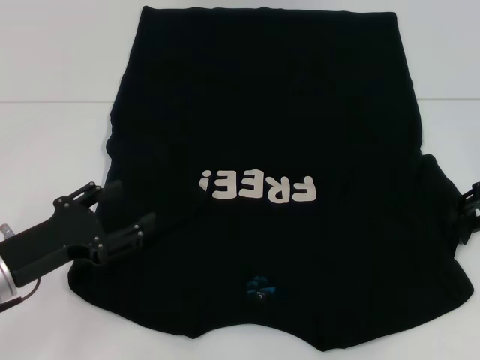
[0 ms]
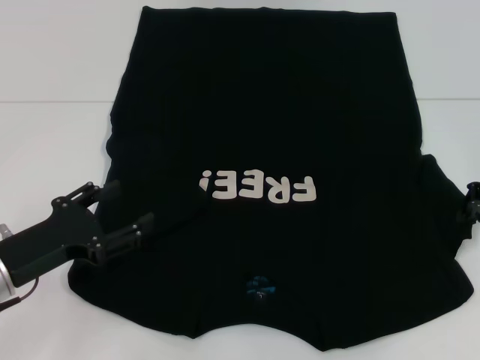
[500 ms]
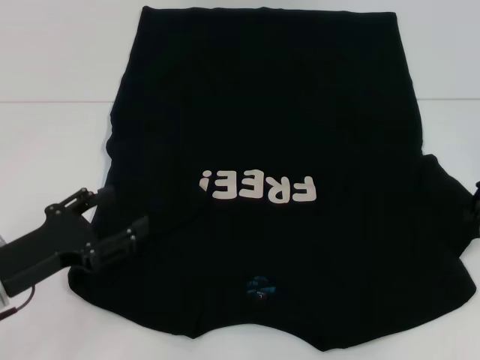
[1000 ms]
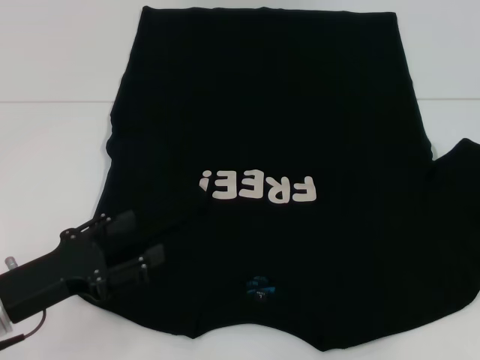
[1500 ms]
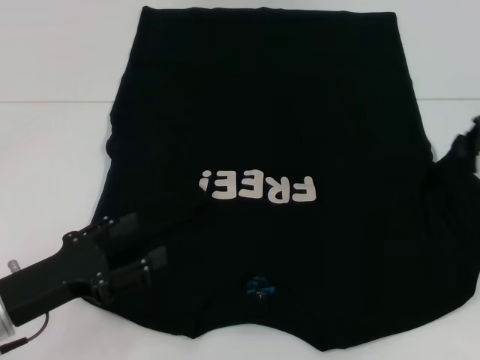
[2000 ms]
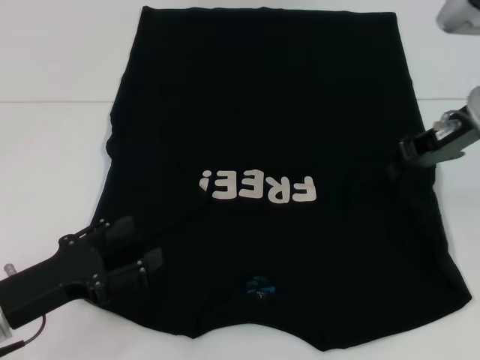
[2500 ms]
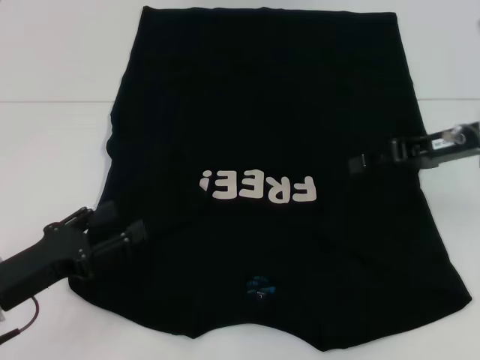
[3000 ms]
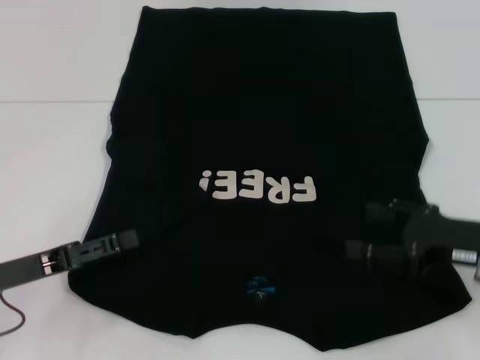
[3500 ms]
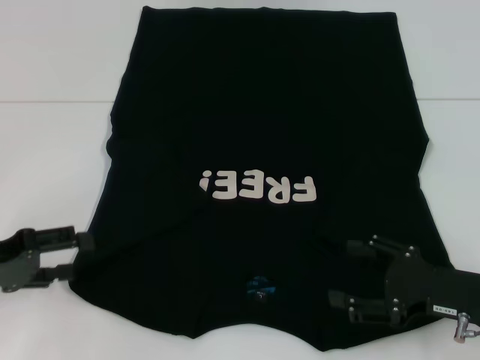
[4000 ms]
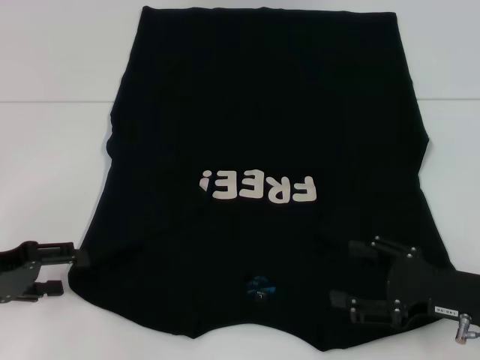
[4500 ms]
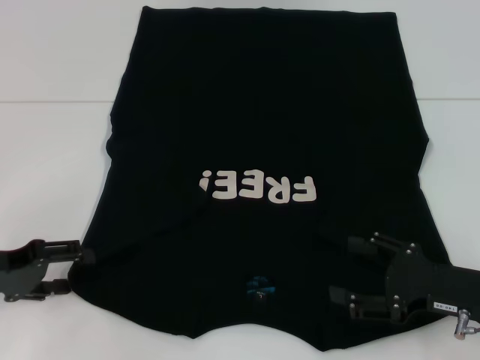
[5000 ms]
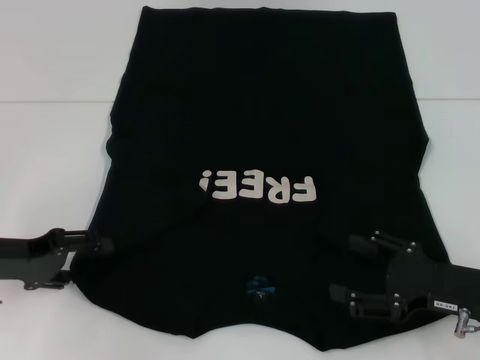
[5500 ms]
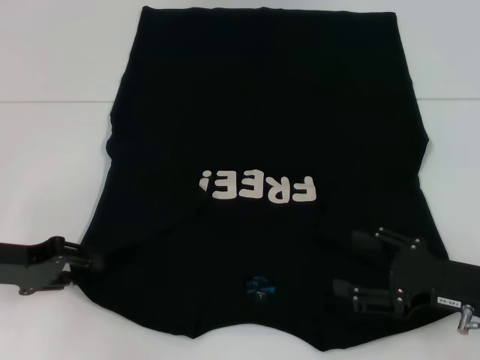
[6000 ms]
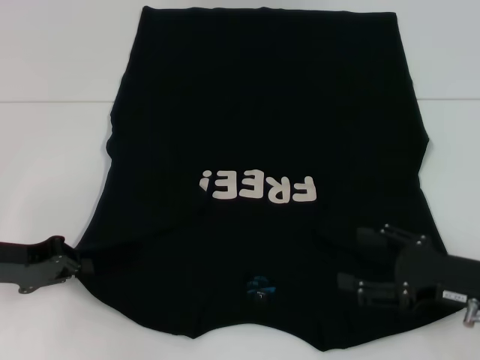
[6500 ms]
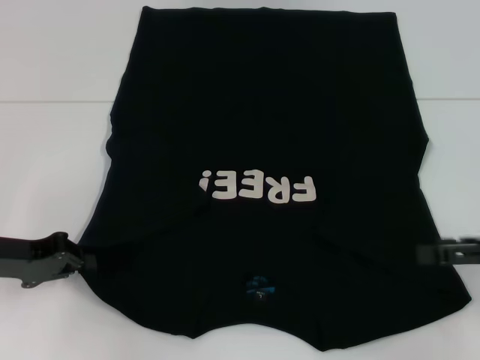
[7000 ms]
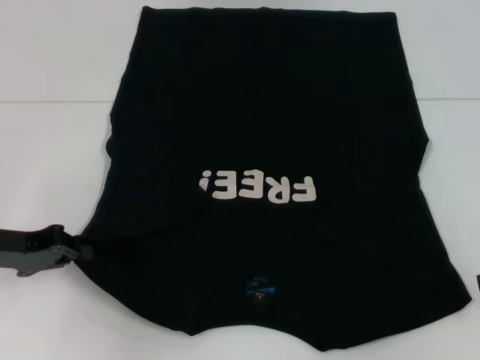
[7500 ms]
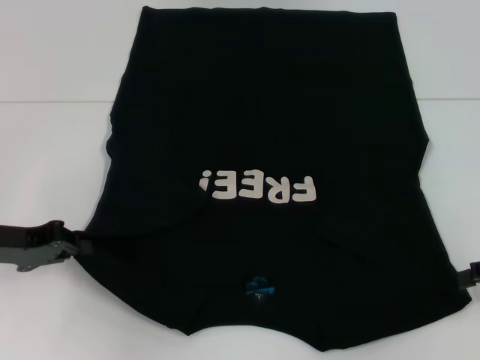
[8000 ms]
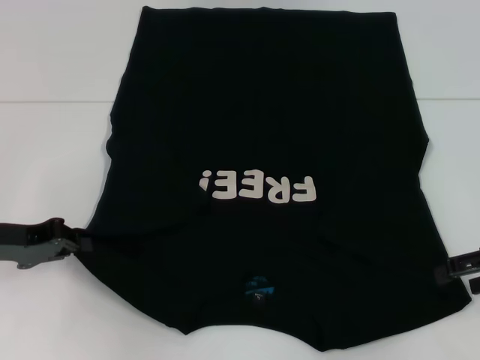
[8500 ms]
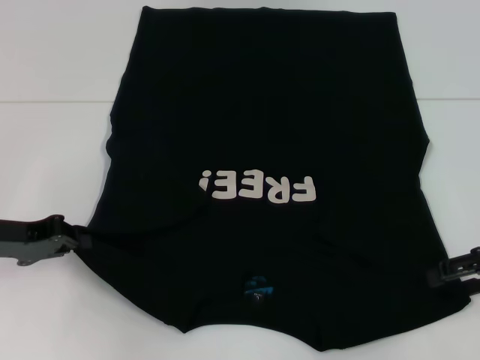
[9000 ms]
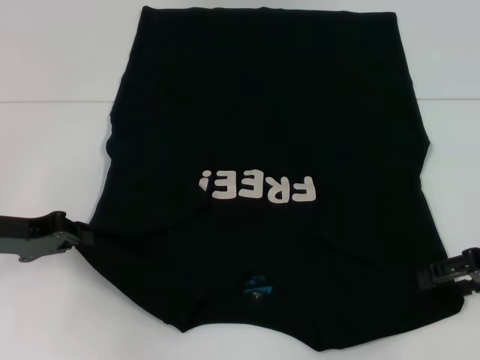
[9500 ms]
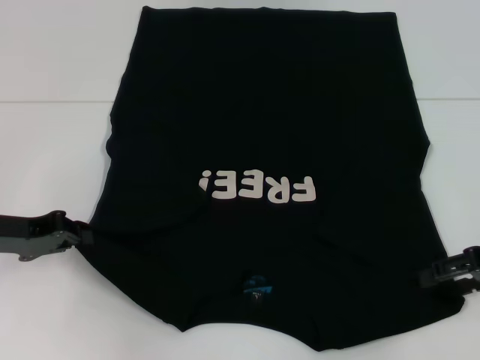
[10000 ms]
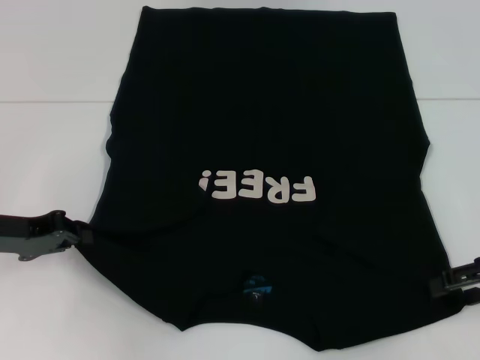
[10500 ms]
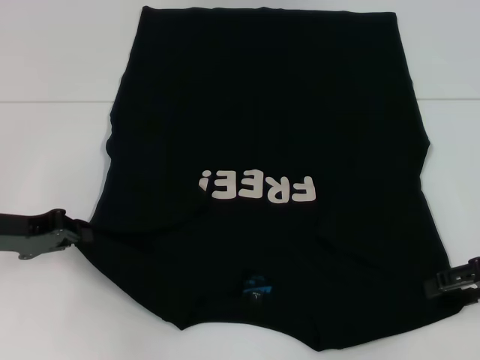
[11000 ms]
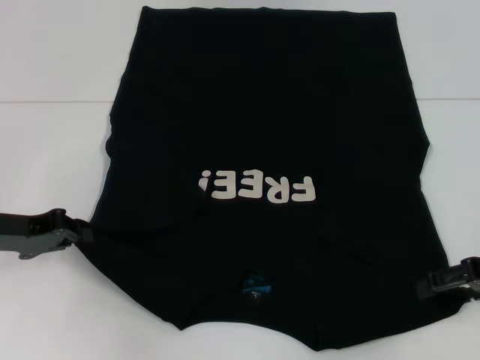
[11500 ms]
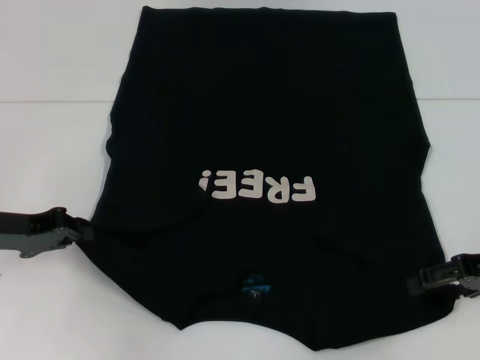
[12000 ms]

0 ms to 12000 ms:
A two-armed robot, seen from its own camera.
Step, 0 ms to 3000 ms: Fold the bottom right sleeve with your right hand.
Step, 3500 ms to 6500 ms: Grab the bottom left corner with your left hand.
0 ms to 2000 ms: The right gripper goes some 10 cm upward, and closes up.
2000 ms to 4000 ms: The right gripper travels downward and backward by about 20 cm, and opens its fingers. The left gripper goes approximately 5 cm to the left.
4000 ms to 6000 ms: The left gripper closes.
6000 ms to 8000 ms: The right gripper travels to the right and upward by some 10 cm; the left gripper closes.
8000 ms to 10000 ms: The grippers make only small movements.
10000 ms to 12000 ms: Neither gripper changes place.

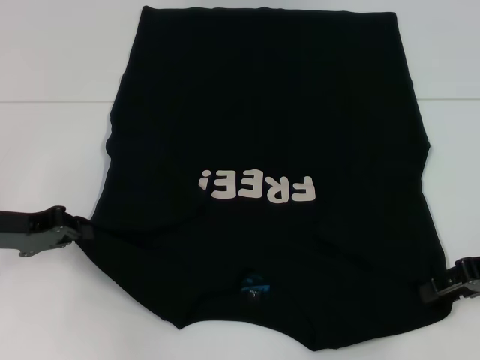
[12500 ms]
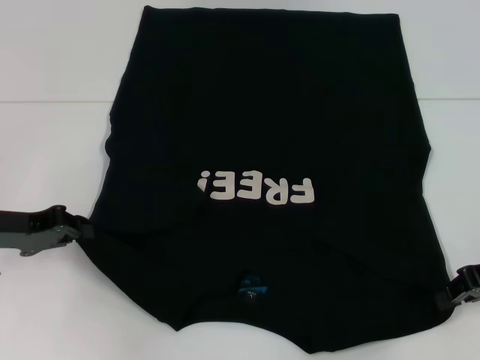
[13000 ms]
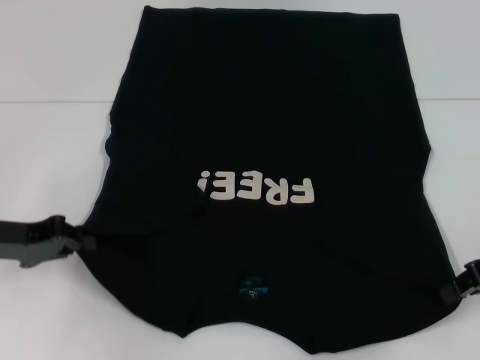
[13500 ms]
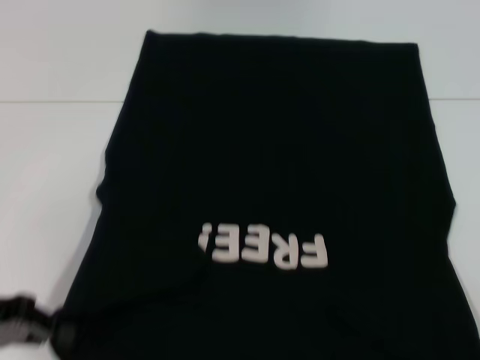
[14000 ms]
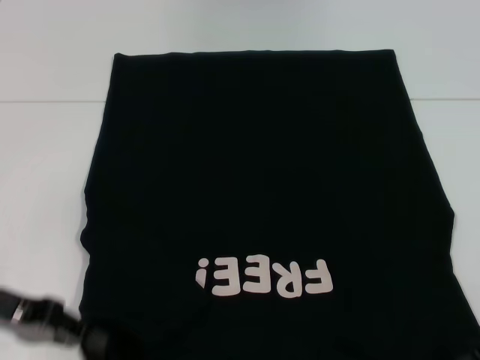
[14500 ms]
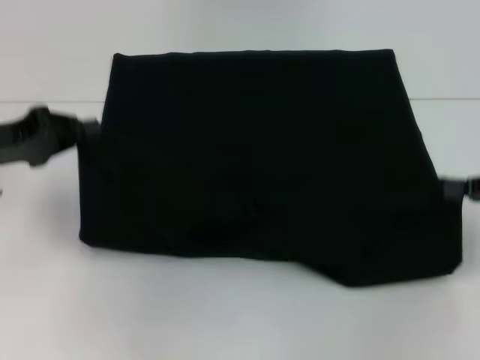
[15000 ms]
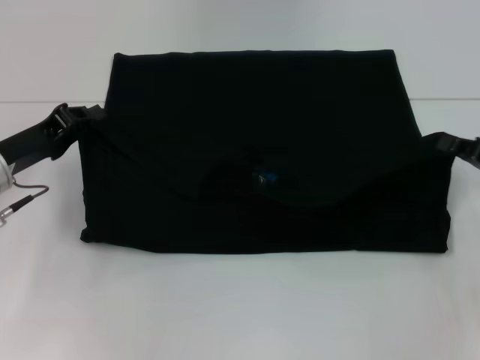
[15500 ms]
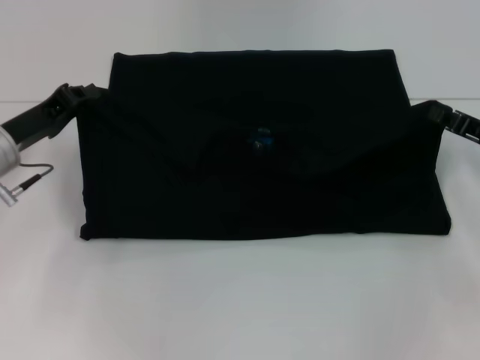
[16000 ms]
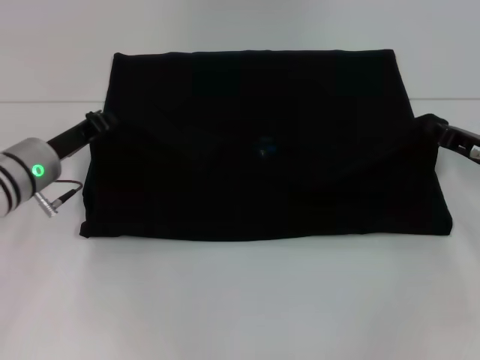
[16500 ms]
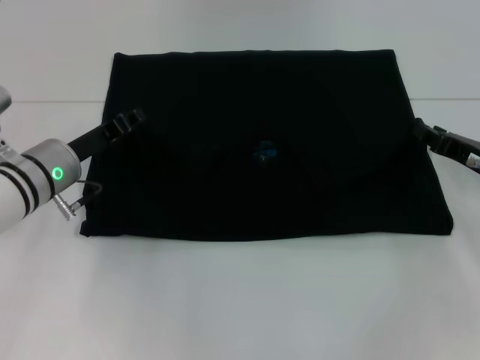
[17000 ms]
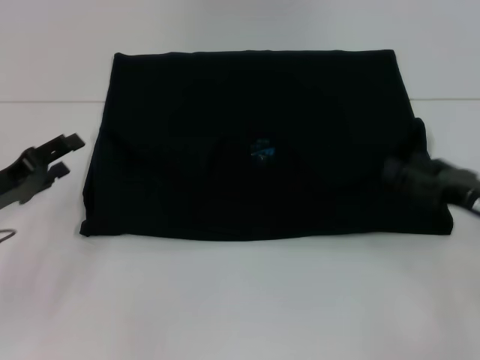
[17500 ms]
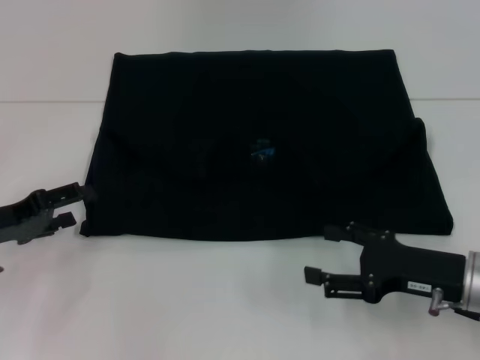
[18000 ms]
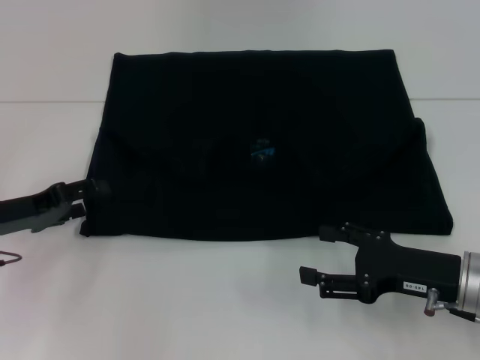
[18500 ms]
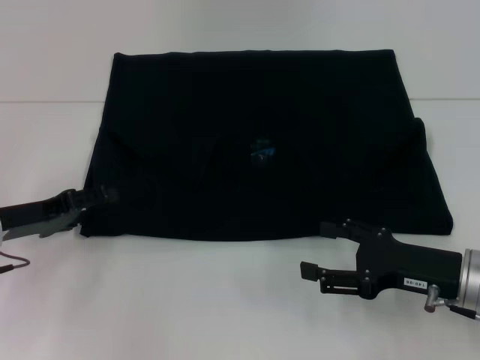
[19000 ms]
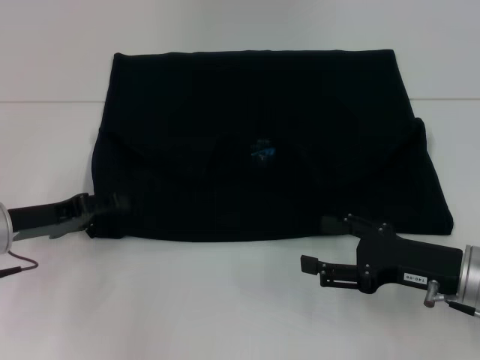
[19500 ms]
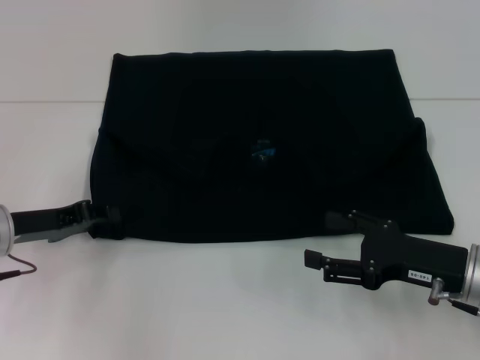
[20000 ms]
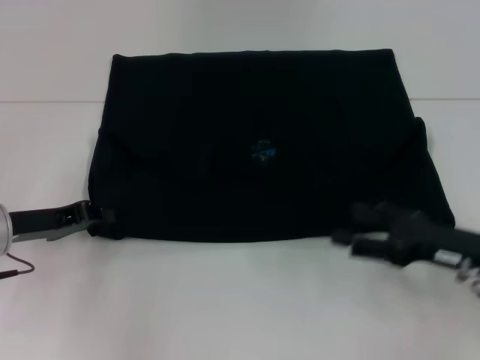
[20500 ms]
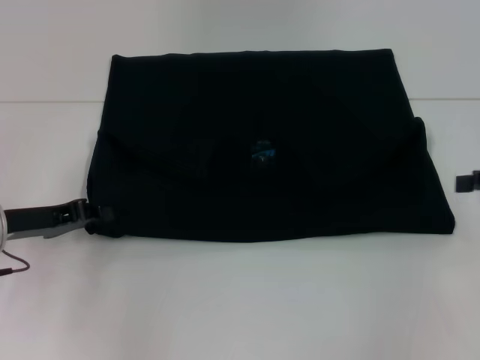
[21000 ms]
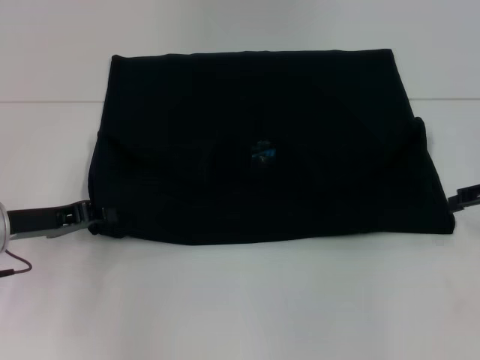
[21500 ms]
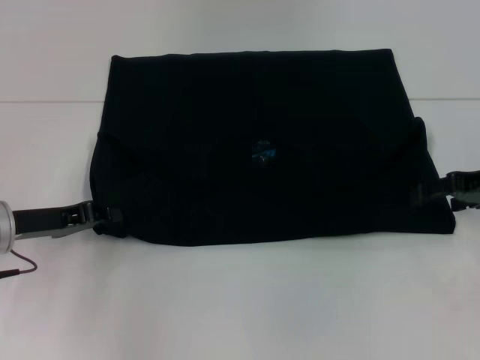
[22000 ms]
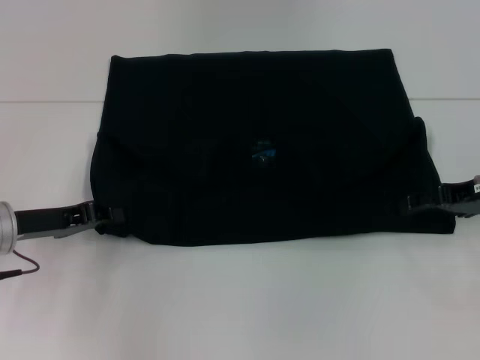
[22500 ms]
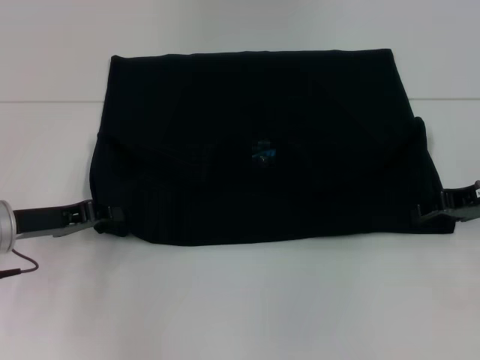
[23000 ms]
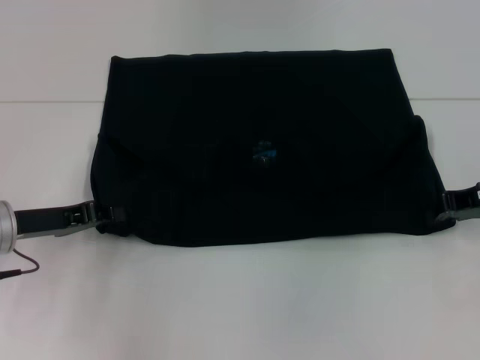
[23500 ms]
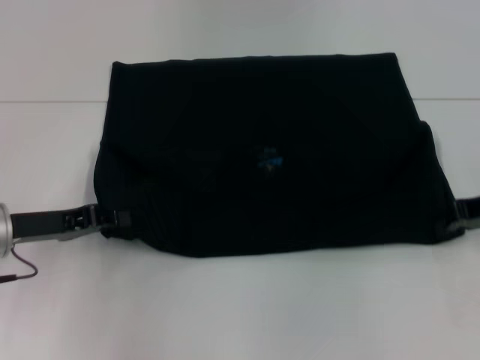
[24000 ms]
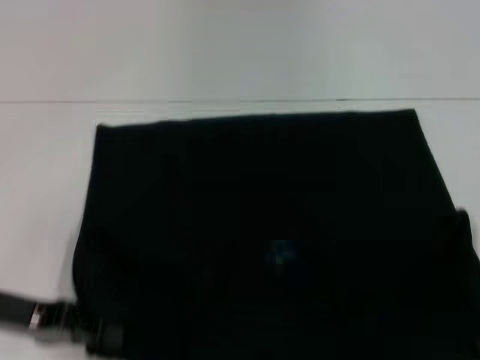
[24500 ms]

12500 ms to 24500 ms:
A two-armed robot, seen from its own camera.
Step, 13500 ms to 17000 ms: Fold the clothes with your left hand.
Step, 13500 ms to 17000 ms: Fold the clothes with your right hand.
12500 ms to 14500 ms: The left gripper shifts approximately 5 cm backward. The right gripper closes.
14500 ms to 16500 ms: The right gripper shifts approximately 10 cm forward and downward, while the left gripper is displaced forward and to the right by approximately 15 cm.
16500 ms to 18500 ms: The left gripper heads to the left and backward, covering approximately 10 cm, and opens. The right gripper shifts some 10 cm backward and to the left, and opens up.
18500 ms to 20500 ms: The left gripper closes.
20500 ms to 22500 ms: The right gripper goes approximately 10 cm forward and upward.
22500 ms to 24500 ms: Both grippers travel together backward, roughly 5 cm. The right gripper closes.

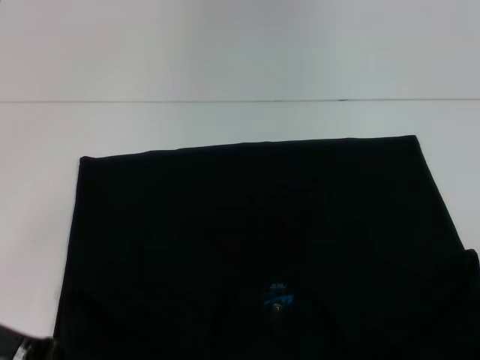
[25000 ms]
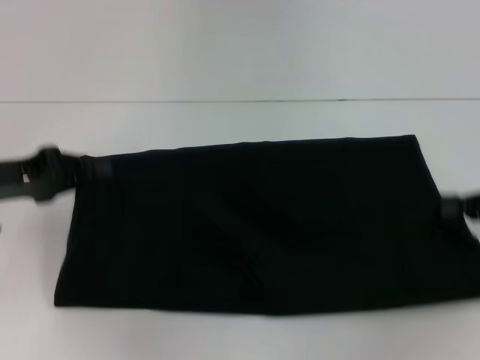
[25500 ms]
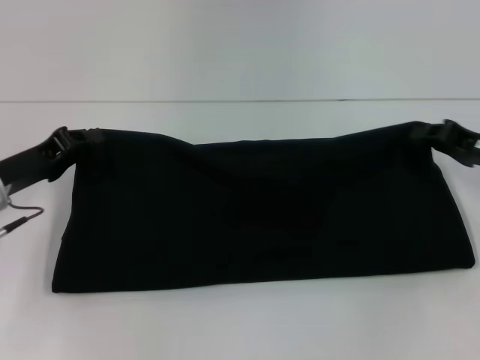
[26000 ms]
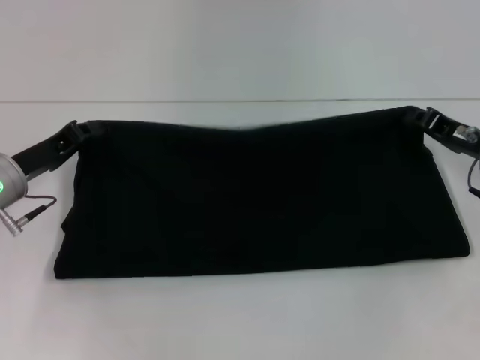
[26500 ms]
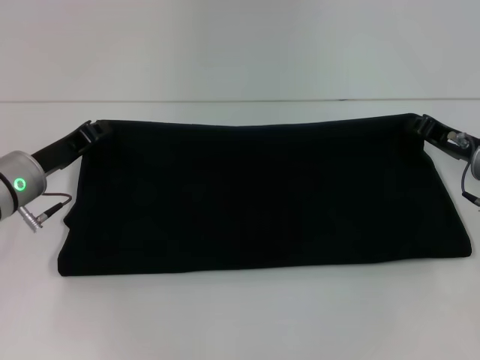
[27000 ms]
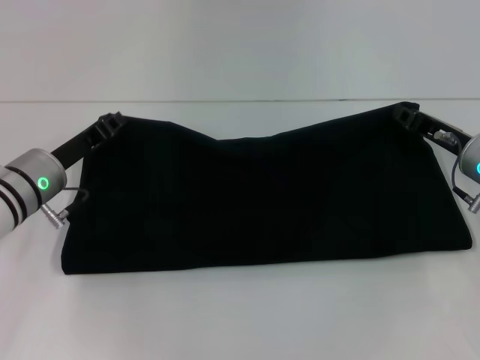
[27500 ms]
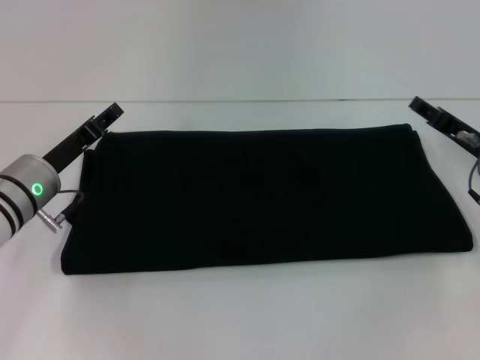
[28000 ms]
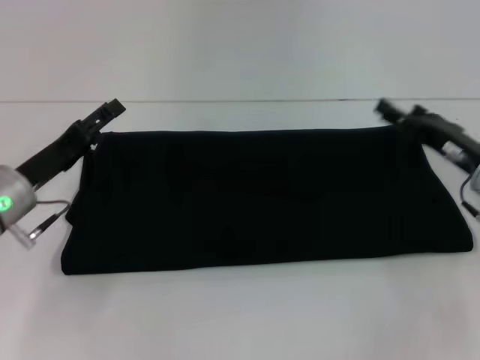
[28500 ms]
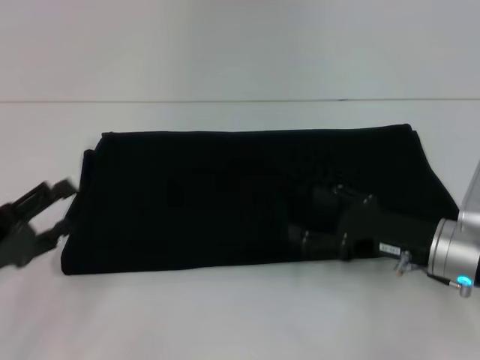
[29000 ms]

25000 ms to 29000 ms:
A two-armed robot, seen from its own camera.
Step, 25000 ms to 27500 ms: Fold the clothes with your right hand.
25000 ms to 27000 ms: The left gripper heads forward, covering about 10 cm, while the right gripper goes roughly 15 cm forward and to the left.
27000 ms to 29000 ms: Both grippers move backward and to the left, approximately 10 cm. The left gripper opens up. Meanwhile the right gripper opens up.
